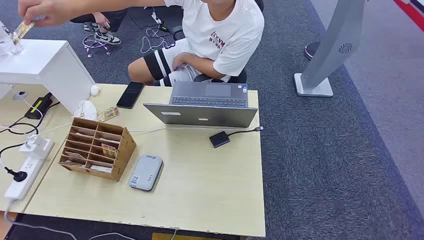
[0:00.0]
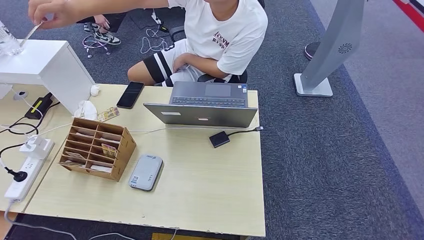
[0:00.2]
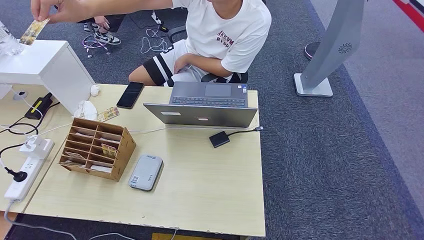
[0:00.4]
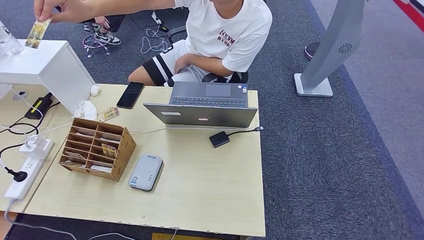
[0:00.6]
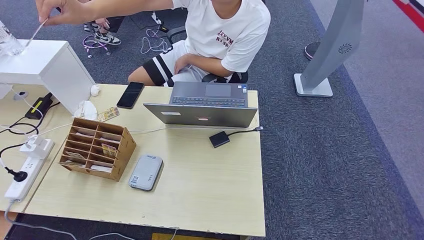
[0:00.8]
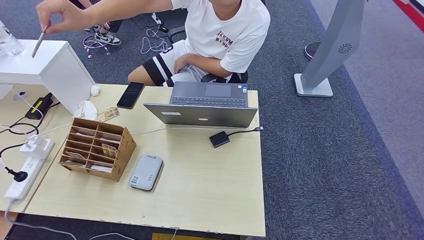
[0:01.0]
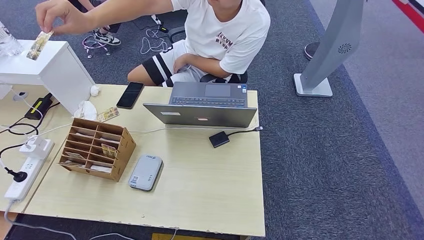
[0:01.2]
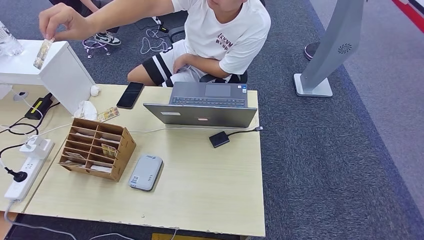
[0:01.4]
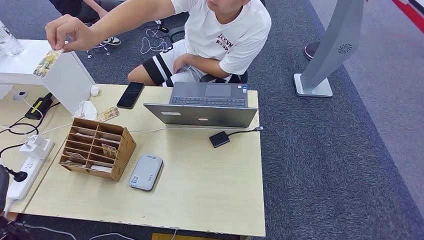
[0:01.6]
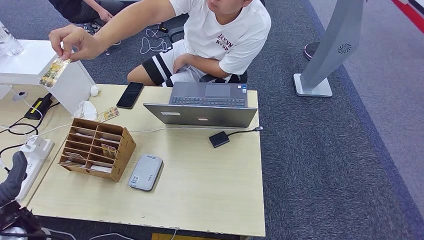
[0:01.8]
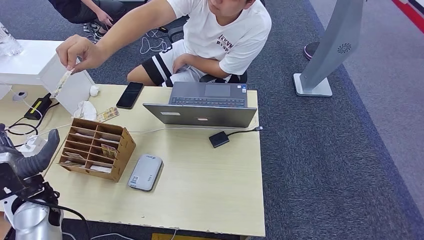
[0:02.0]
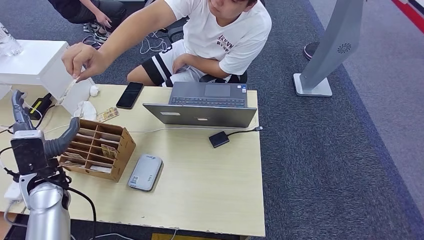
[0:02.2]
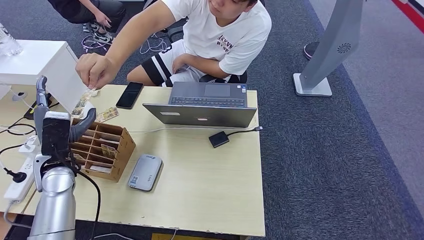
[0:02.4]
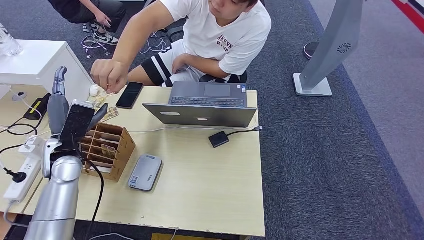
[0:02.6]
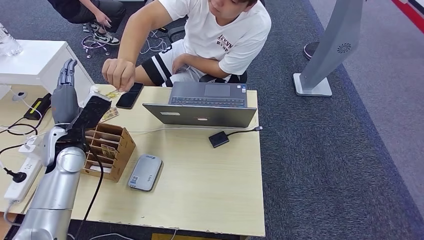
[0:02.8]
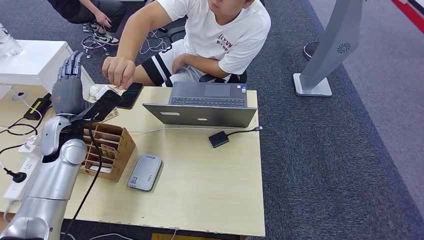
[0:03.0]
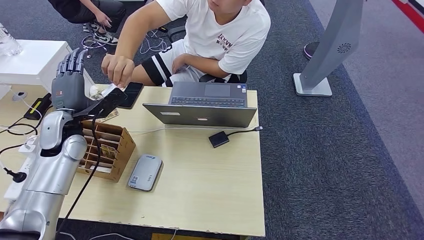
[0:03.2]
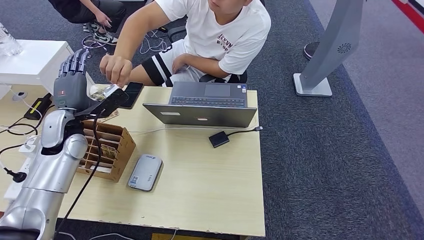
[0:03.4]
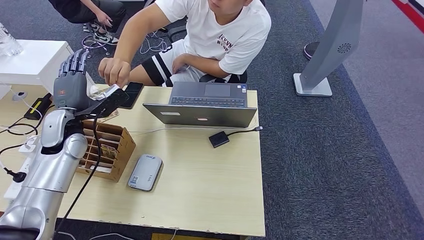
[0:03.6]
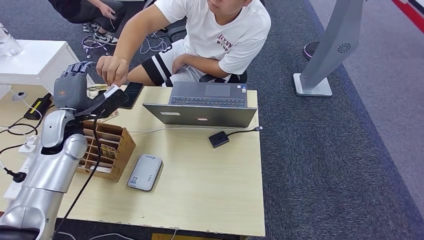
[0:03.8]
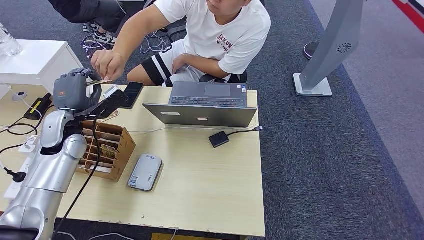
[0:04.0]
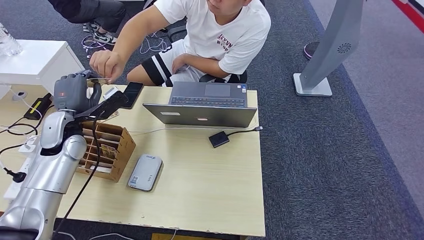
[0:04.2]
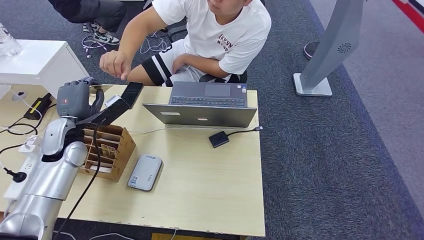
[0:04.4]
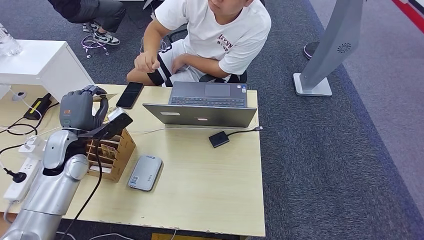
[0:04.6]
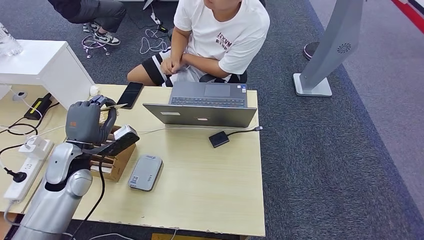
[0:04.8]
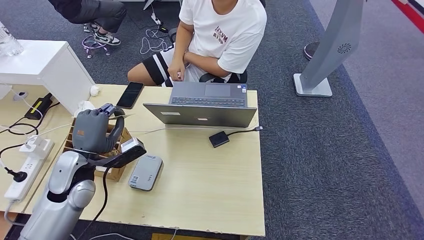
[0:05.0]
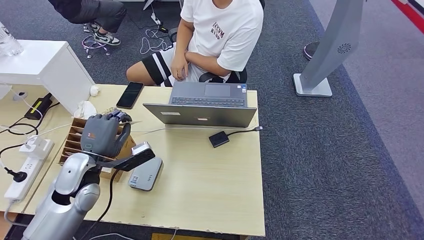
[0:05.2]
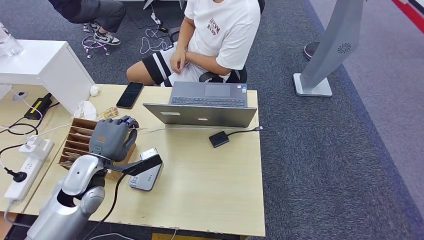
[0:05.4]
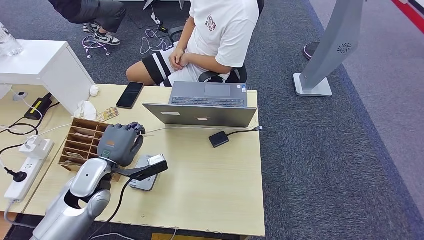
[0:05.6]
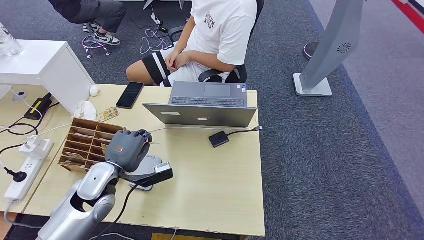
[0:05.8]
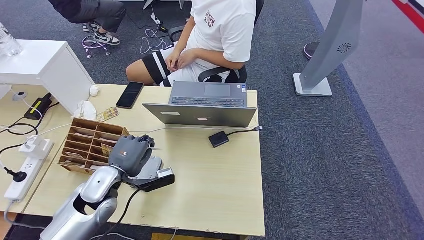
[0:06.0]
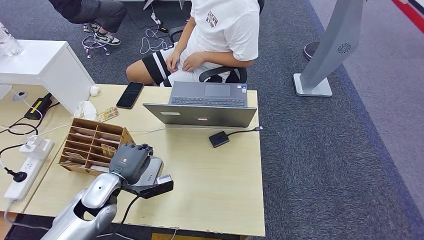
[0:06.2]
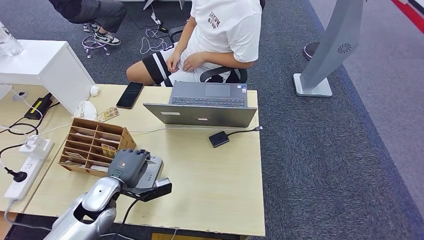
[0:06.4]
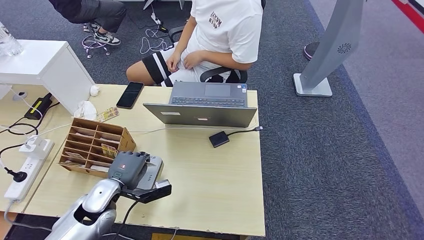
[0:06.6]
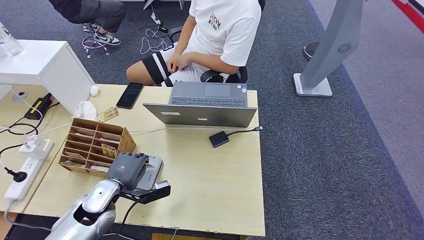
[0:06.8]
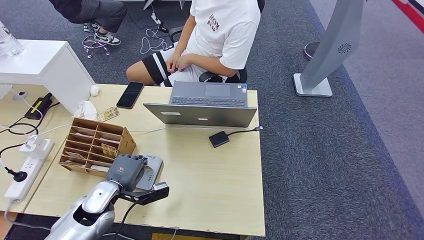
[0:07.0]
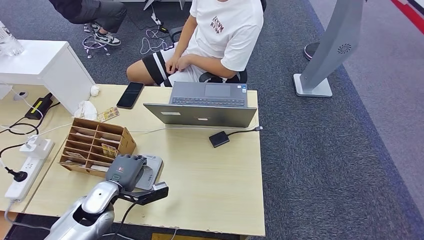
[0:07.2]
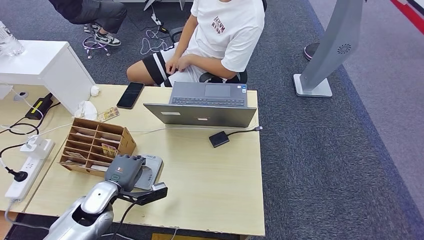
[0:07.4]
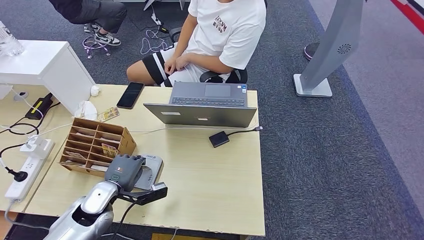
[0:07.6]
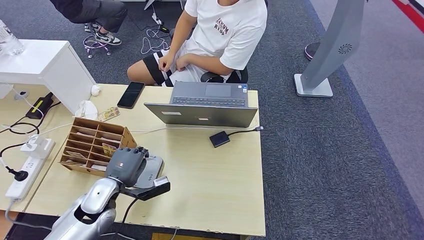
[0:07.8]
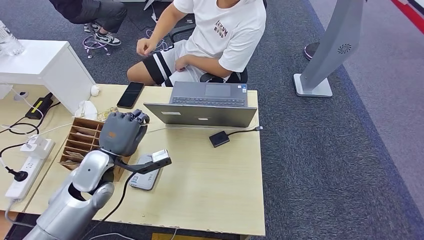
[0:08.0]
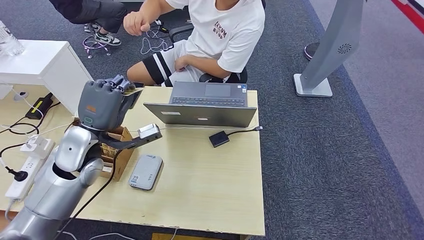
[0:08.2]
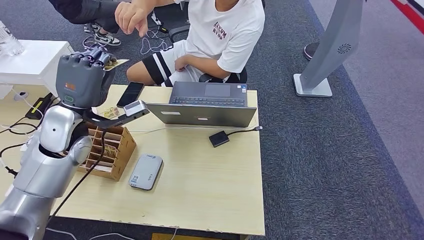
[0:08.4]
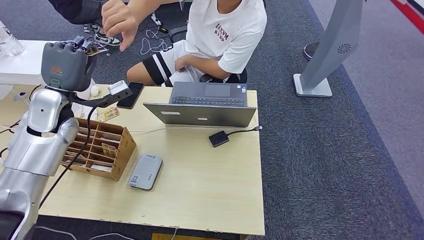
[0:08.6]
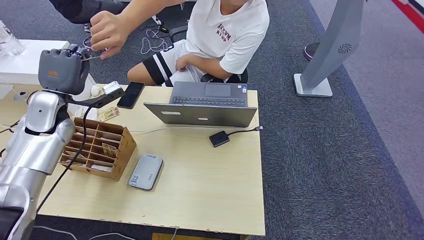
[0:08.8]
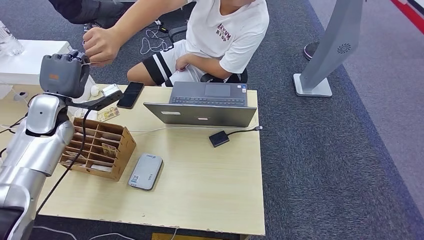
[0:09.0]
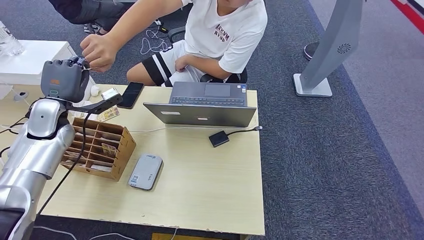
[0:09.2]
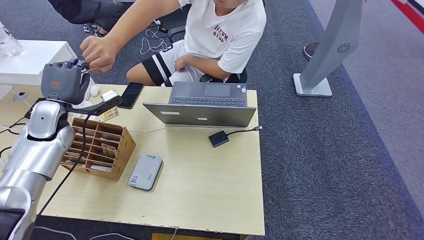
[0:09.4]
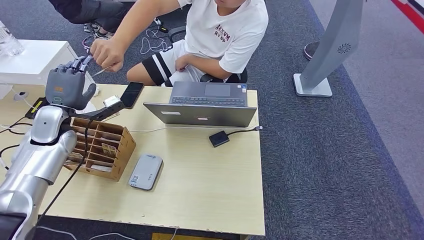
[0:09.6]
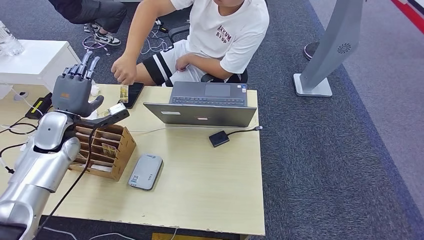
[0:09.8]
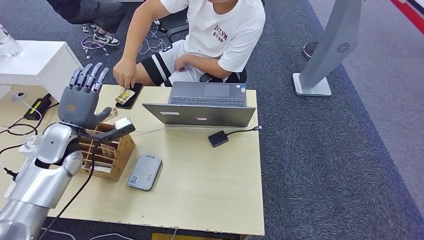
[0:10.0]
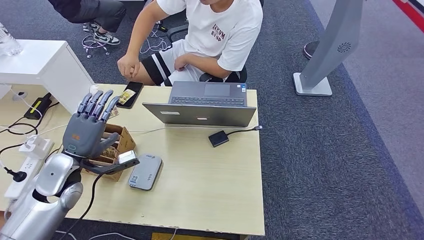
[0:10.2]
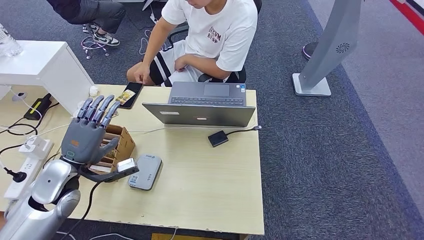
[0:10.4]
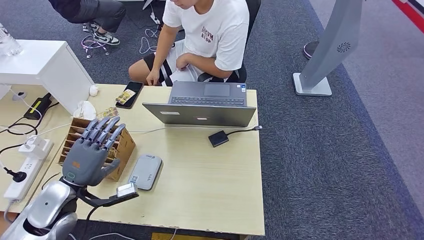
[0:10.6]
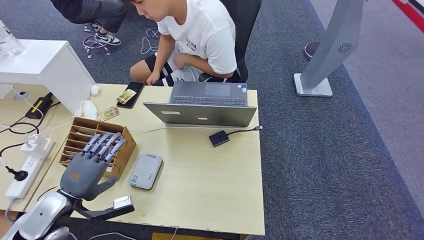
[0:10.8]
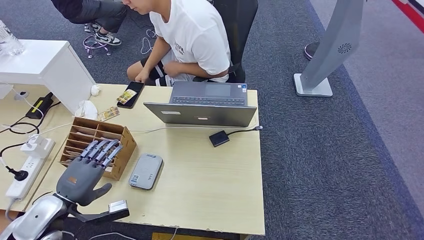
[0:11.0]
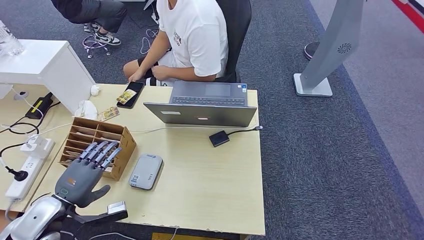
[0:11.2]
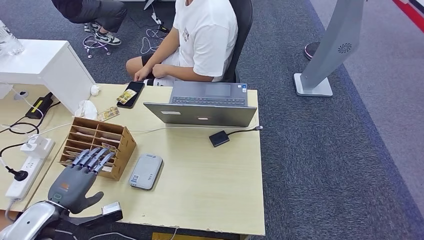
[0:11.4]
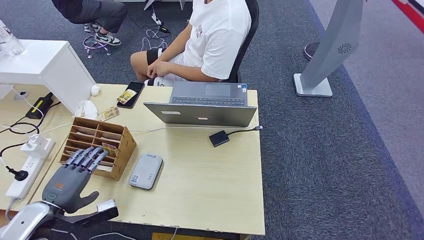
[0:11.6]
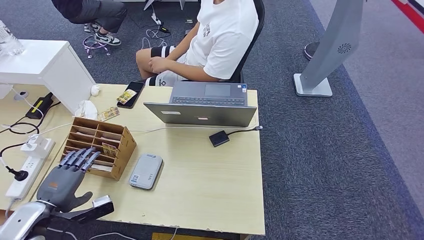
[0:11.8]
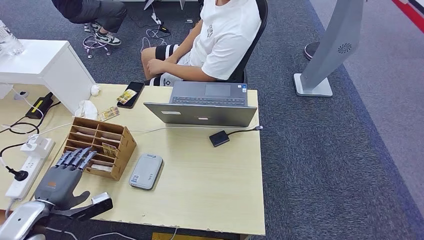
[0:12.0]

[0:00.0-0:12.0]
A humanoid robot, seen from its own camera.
Step, 0:00.0 to 0:03.8: Take the ID card from the person's hand.
Step, 0:04.2 to 0:08.2: Place the ID card on the card reader.
Step, 0:08.4 to 0:10.8: Hand the ID card to the person.
0:01.6 to 0:03.0: The left hand moves forward, roughly 20 cm.
0:03.0 to 0:04.4: The hands move only a little.
0:06.0 to 0:07.6: The left hand travels downward by about 5 cm.
0:10.4 to 0:12.0: The left hand is displaced backward, to the left and downward by roughly 15 cm.

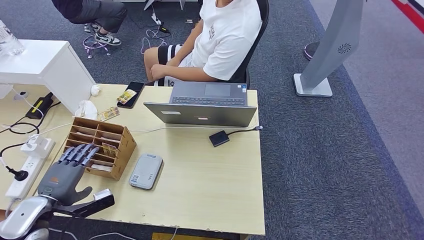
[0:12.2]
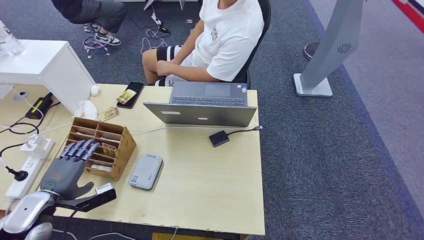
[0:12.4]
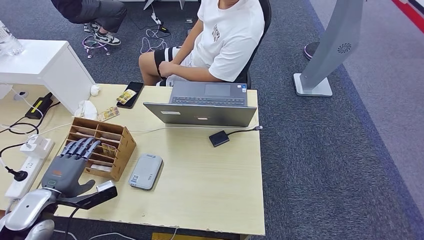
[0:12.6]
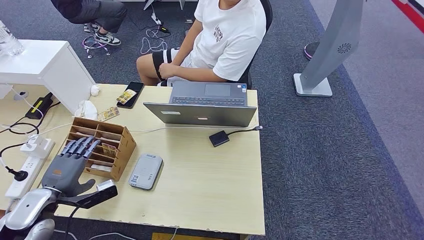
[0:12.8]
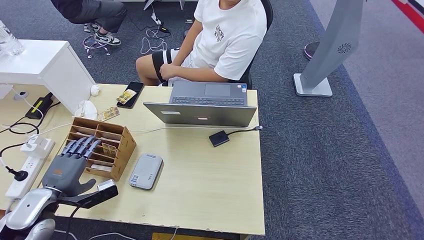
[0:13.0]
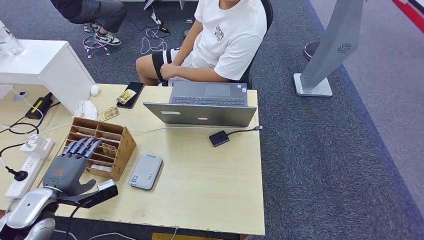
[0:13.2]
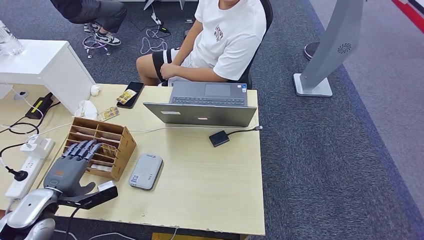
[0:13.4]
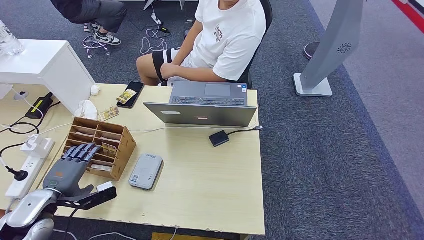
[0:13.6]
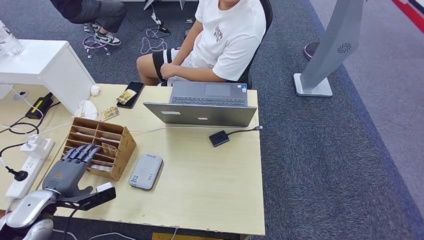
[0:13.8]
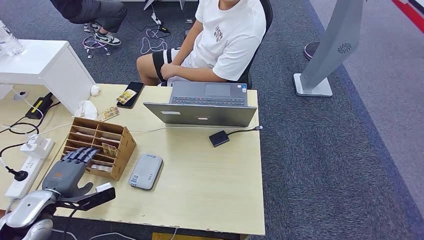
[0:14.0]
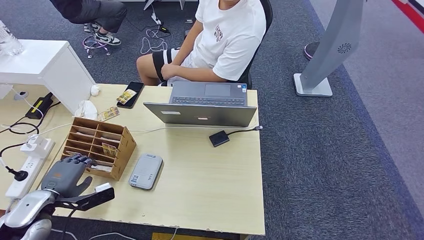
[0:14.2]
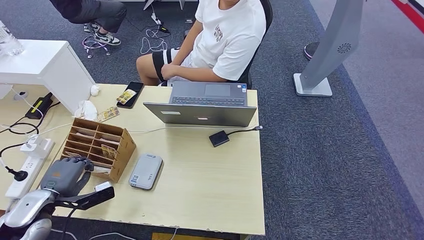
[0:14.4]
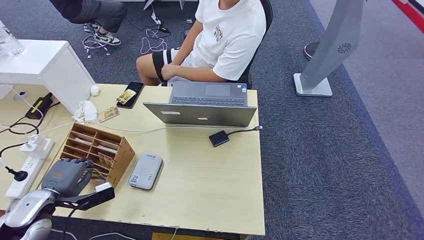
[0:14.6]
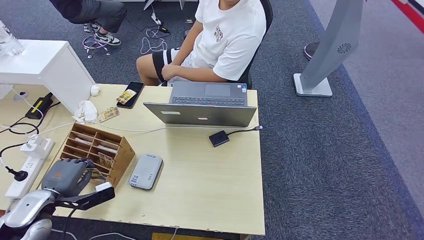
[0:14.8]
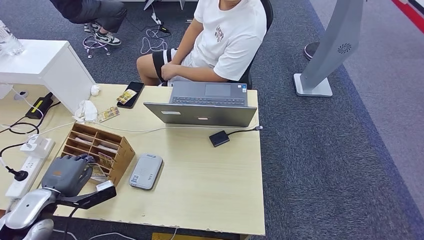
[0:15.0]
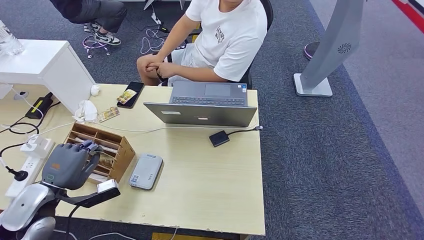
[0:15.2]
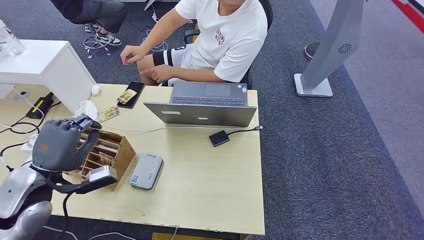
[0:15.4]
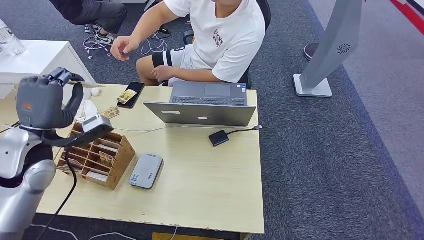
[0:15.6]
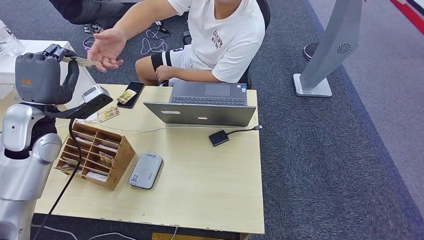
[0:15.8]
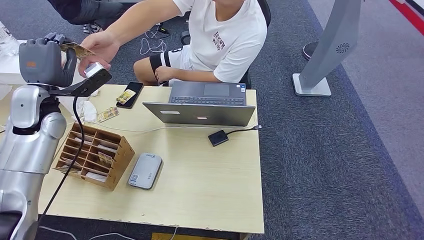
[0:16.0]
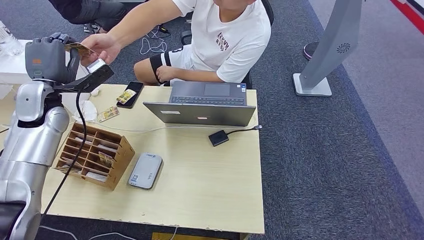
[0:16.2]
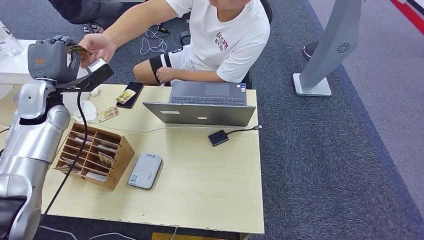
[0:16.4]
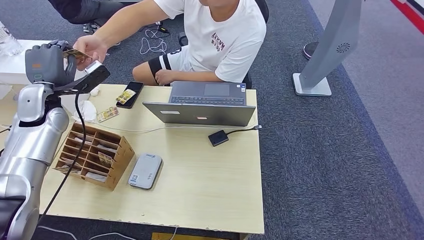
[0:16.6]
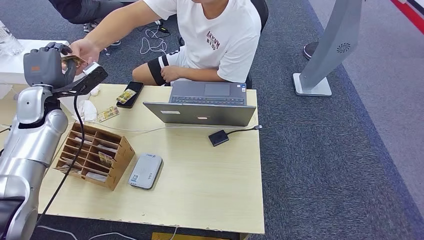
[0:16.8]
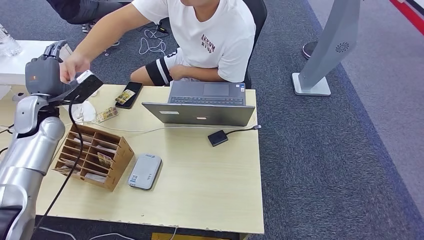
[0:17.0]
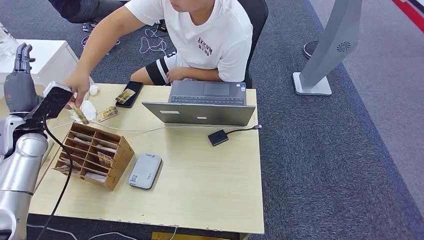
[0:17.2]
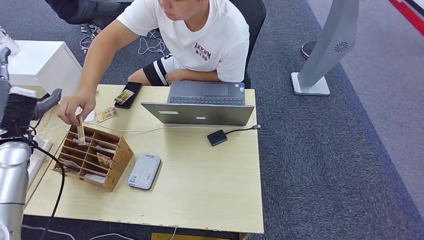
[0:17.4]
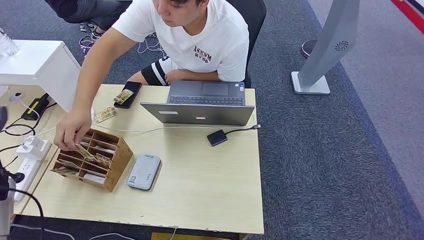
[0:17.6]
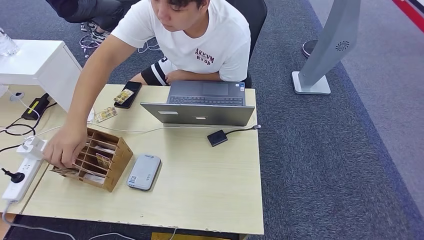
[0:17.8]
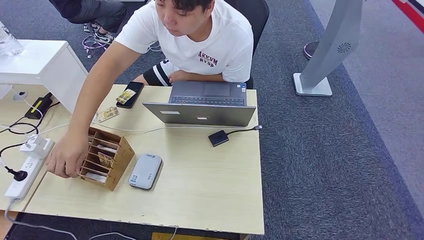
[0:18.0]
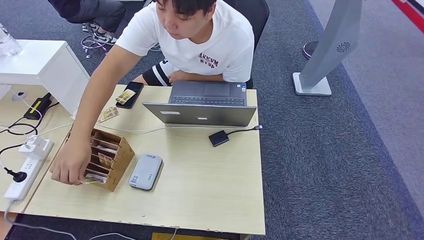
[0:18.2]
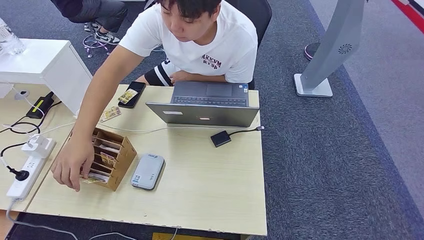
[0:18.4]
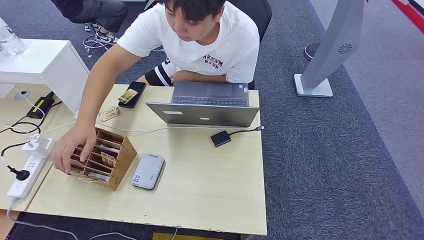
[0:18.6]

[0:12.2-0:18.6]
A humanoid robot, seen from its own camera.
Step, 0:12.2 to 0:15.6: Pick up the room key from the key card box.
Step, 0:16.0 to 0:18.6: Hand the room key to the person.
0:12.2 to 0:13.8: The hands make only small movements.
0:13.8 to 0:15.4: The left hand goes some 10 cm upward and to the right.
